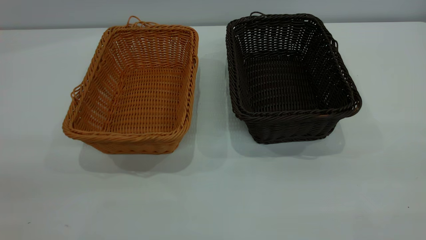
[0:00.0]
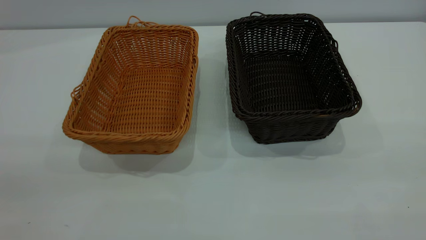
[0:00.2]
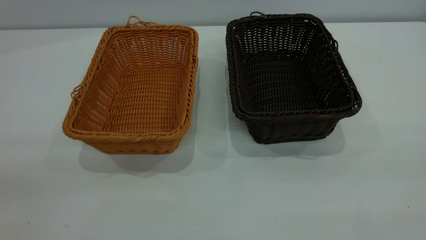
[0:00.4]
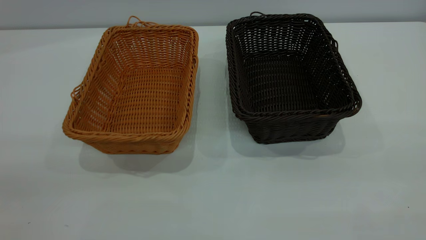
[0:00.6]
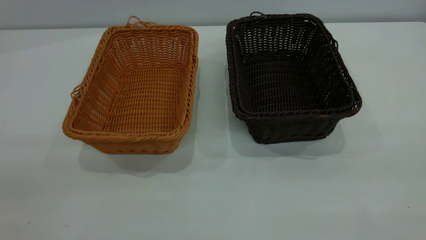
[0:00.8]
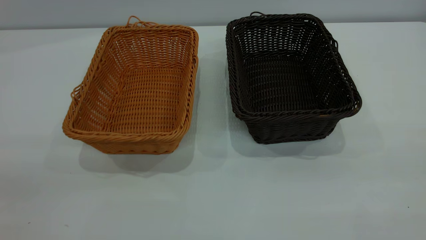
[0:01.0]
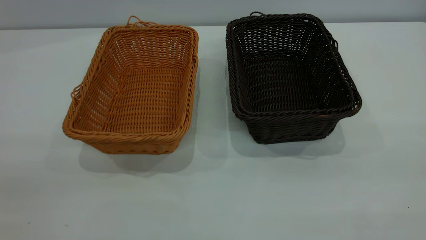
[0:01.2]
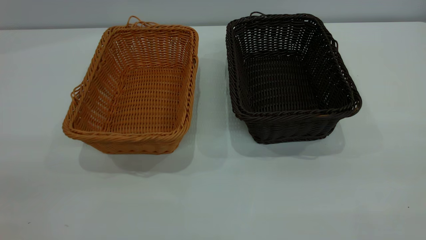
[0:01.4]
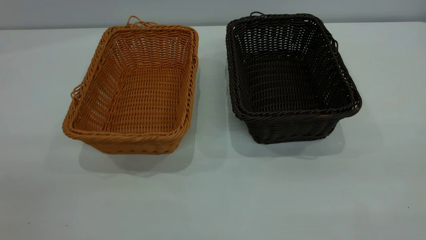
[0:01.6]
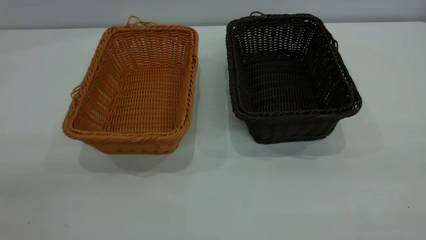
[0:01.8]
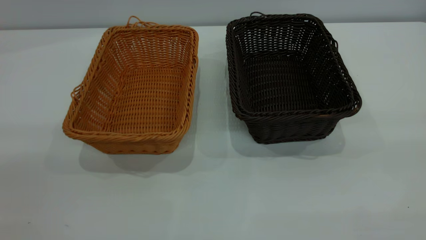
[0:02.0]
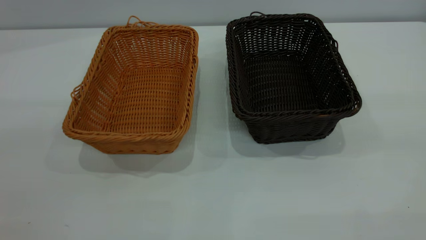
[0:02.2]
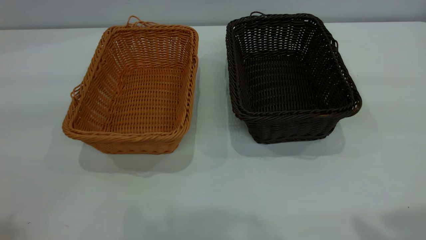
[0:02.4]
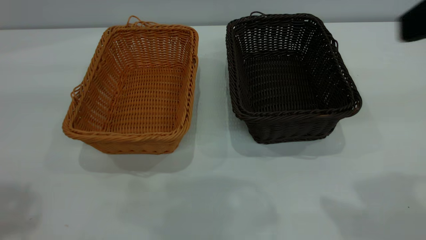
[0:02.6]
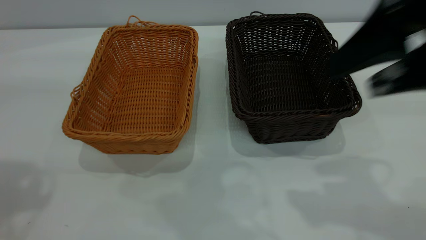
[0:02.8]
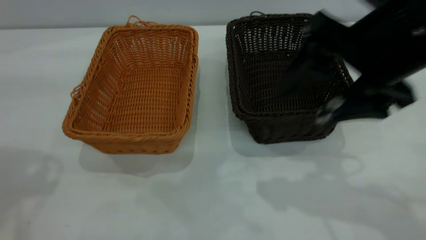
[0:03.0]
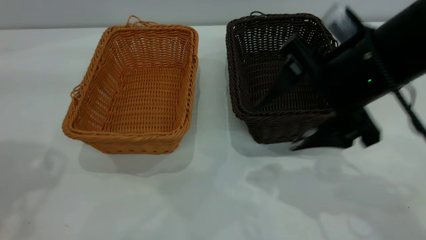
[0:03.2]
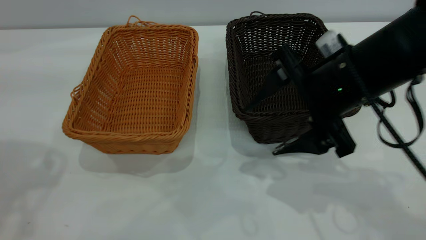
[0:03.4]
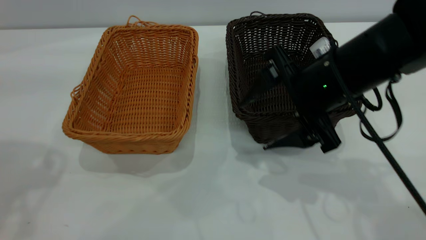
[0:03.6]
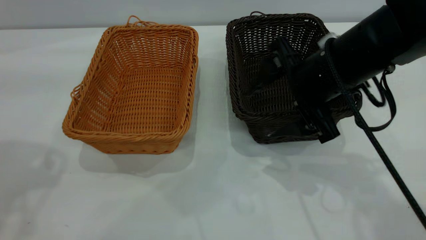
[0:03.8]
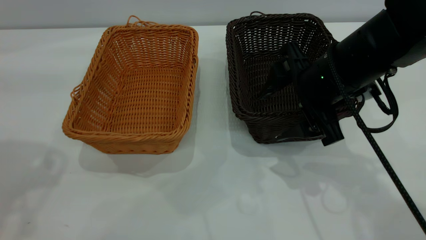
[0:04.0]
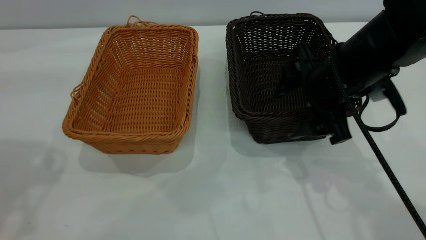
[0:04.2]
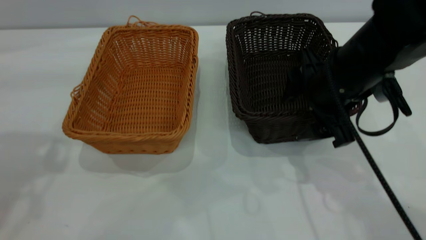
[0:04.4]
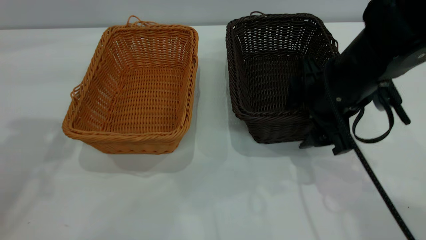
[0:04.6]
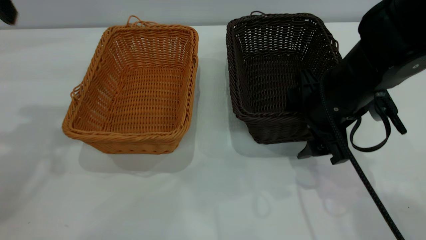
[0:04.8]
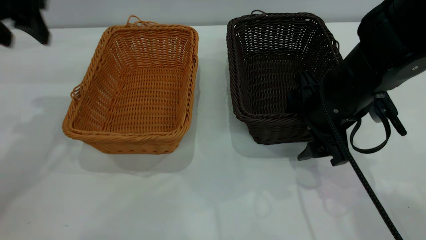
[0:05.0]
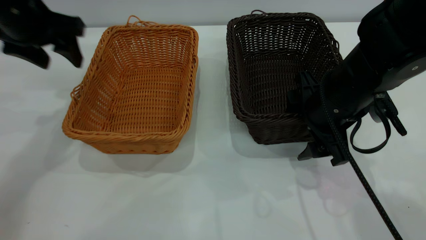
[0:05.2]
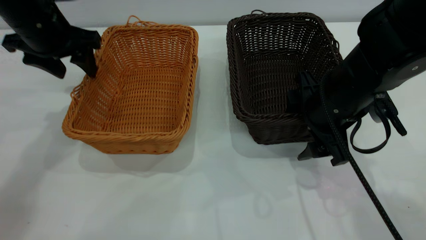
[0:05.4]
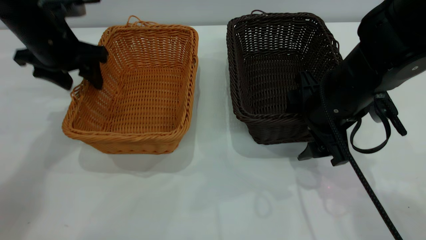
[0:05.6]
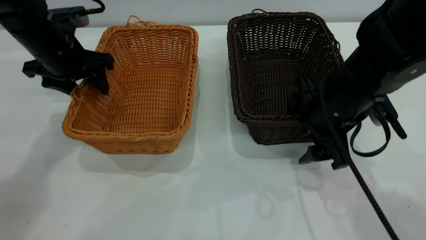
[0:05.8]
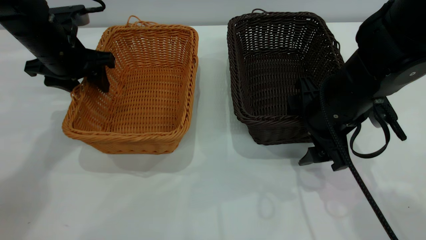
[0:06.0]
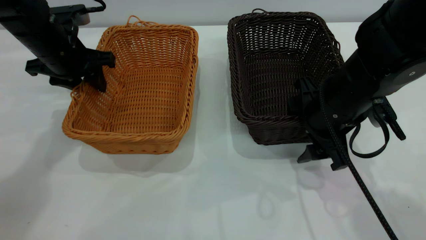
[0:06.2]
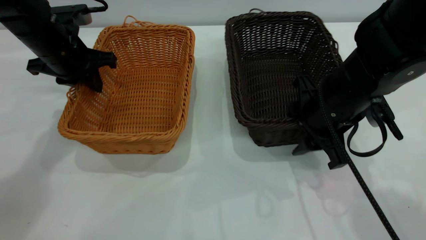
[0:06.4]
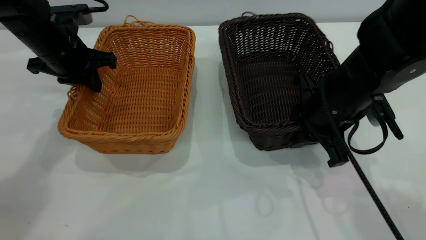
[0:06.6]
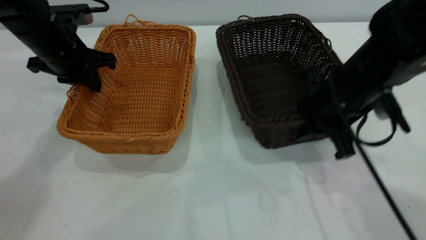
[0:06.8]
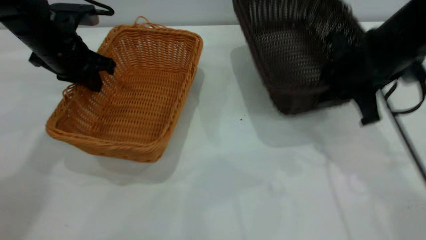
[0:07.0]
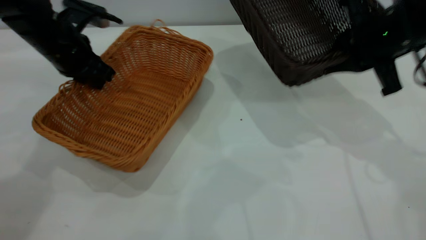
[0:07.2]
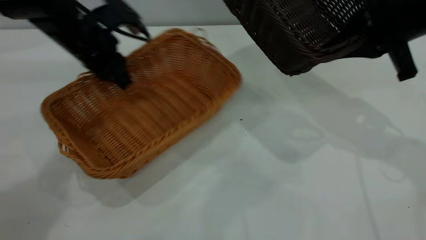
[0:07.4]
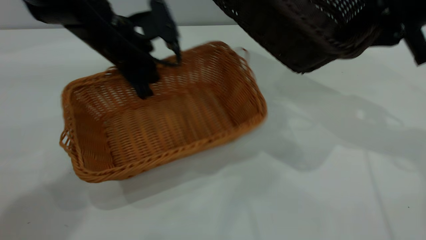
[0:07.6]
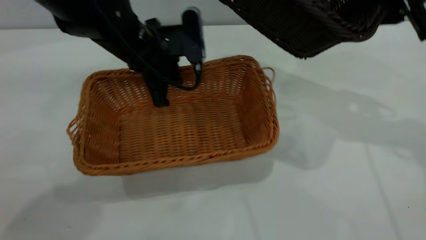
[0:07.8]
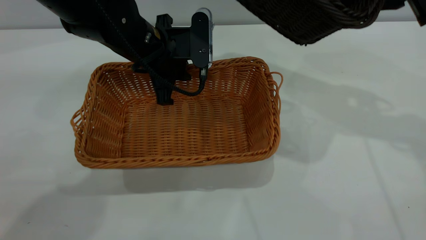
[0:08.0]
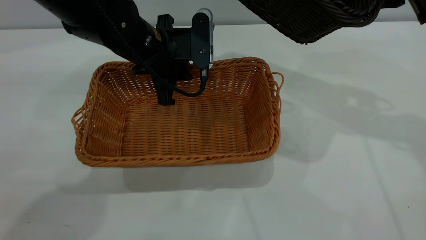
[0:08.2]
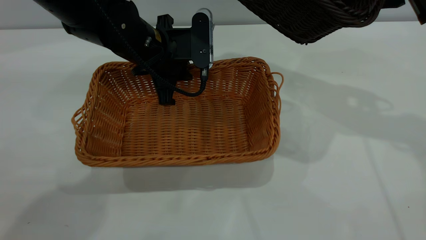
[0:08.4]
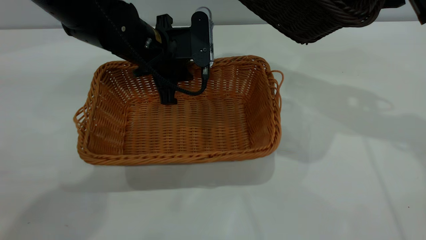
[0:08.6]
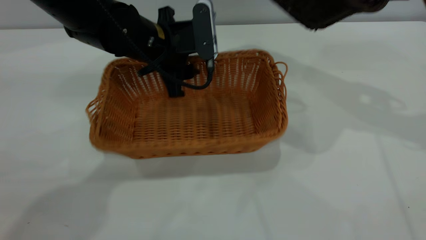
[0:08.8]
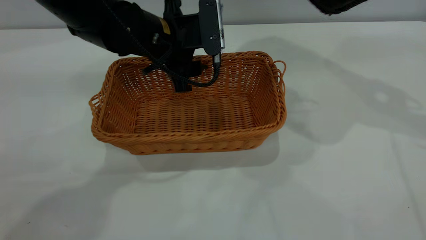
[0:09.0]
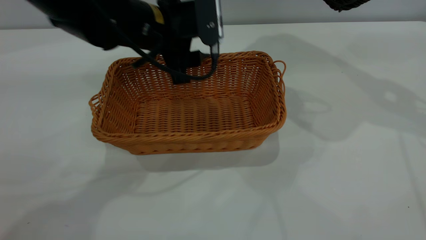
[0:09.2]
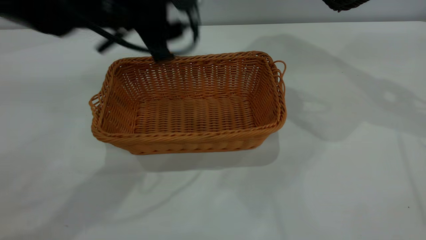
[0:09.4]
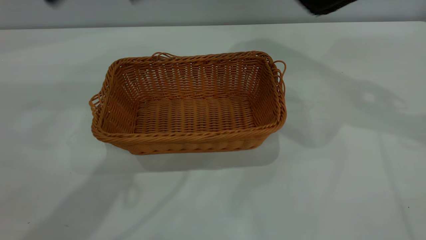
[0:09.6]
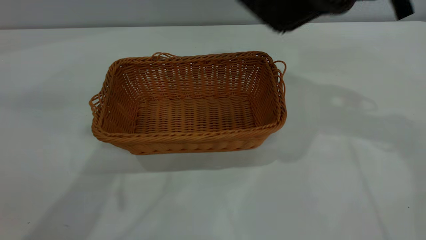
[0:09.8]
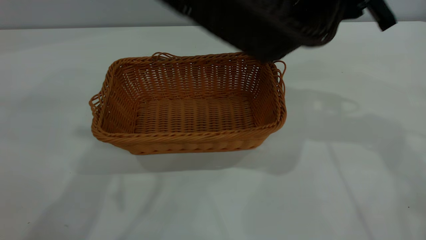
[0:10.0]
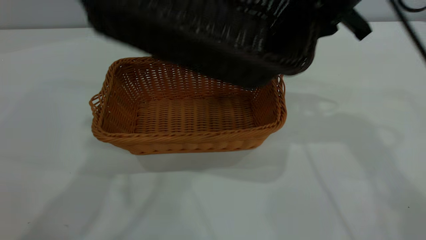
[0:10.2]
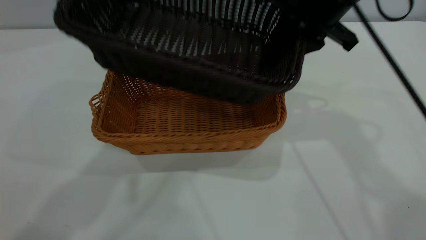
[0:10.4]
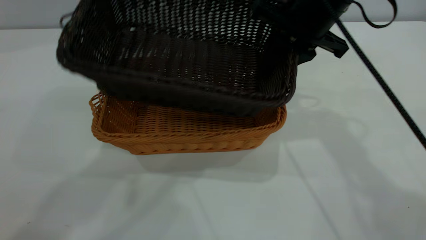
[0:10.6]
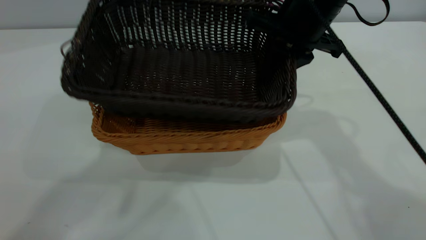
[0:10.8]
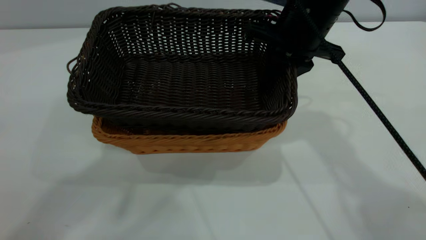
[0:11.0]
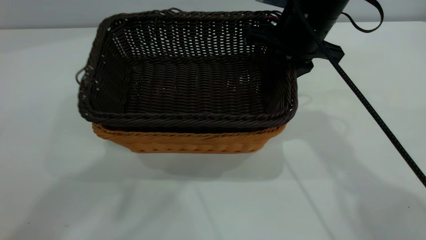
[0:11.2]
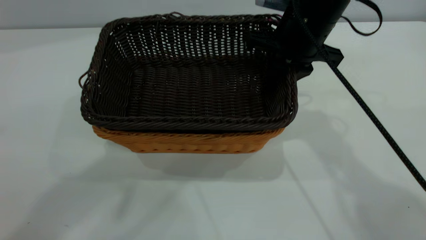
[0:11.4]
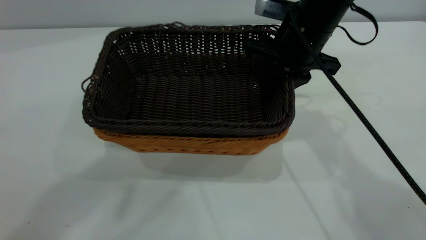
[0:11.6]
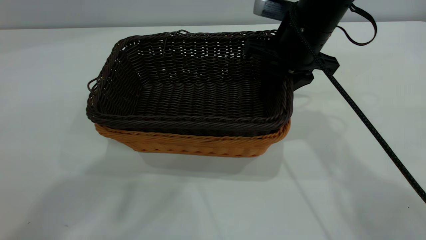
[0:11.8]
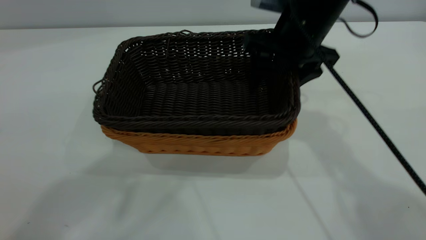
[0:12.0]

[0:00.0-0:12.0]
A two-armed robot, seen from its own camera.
Task of the whole recording: the left gripper grasp the brown basket and place it in the center of the table, the right gripper grasp the black basket and place it inside the brown one.
Step, 0:00.0 to 0:06.8: Pick up the light basket with the right gripper.
Step, 0:07.0 to 0:09.2: Place the light-colored basket in the center.
0:00.0 to 0:01.6: The two grippers keep their place.
0:01.6 to 0:03.0: The right gripper is displaced forward, to the left and downward by some 30 cm.
0:03.0 to 0:04.4: The right gripper heads downward and forward, covering roughly 10 cm.
0:04.4 to 0:06.0: The left gripper goes some 25 cm downward and forward.
0:06.0 to 0:07.6: The left gripper moves to the right, some 10 cm, and closes its fingers. Meanwhile the right gripper goes about 15 cm upward and to the right, and closes.
0:07.6 to 0:09.0: The right gripper moves roughly 5 cm; the left gripper goes about 5 cm to the right, and opens up.
0:09.0 to 0:10.4: The left gripper travels upward by about 30 cm. Meanwhile the right gripper moves to the left, approximately 15 cm.
0:10.4 to 0:12.0: The right gripper opens up.

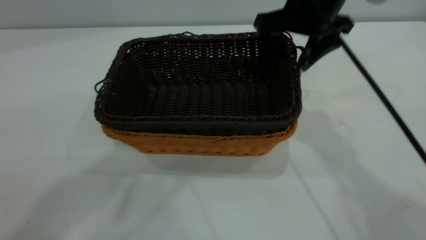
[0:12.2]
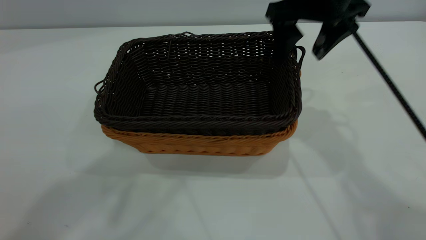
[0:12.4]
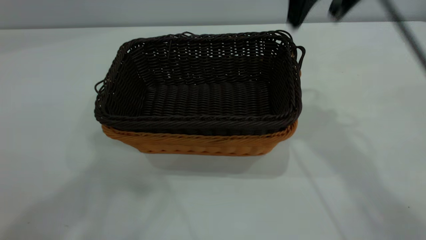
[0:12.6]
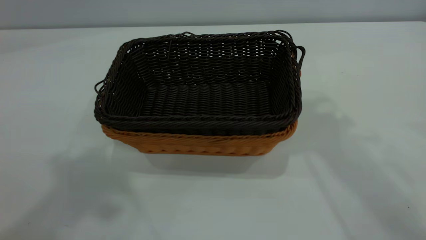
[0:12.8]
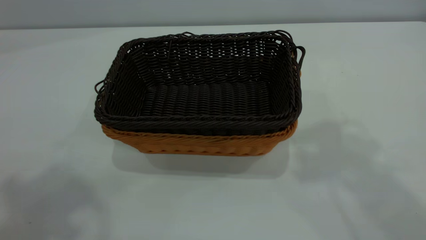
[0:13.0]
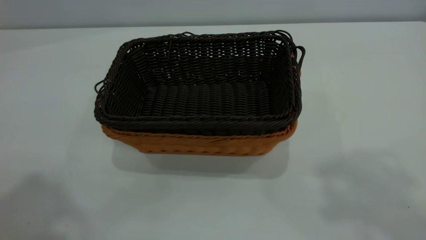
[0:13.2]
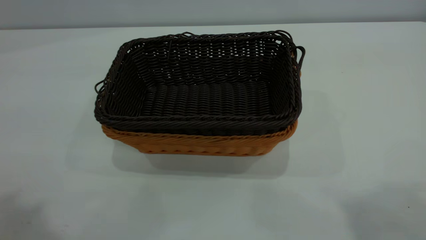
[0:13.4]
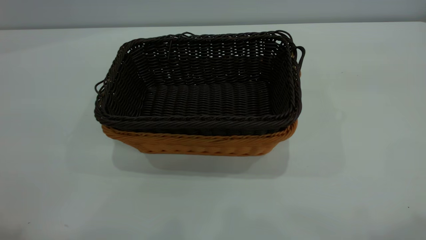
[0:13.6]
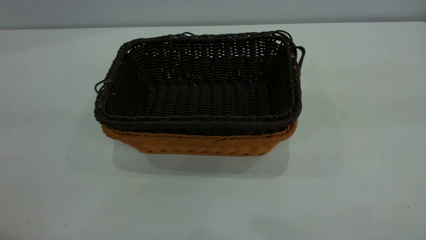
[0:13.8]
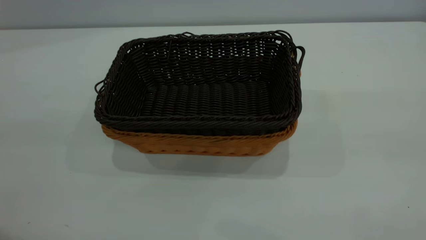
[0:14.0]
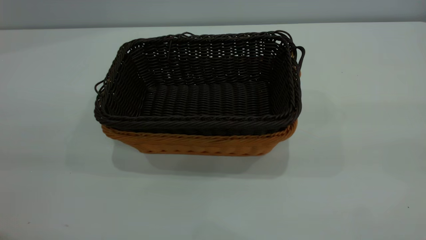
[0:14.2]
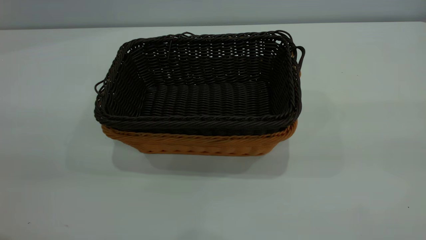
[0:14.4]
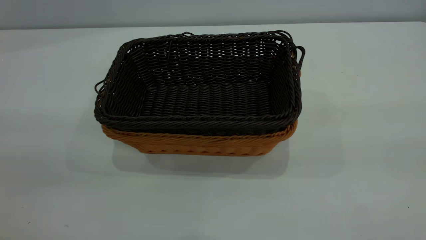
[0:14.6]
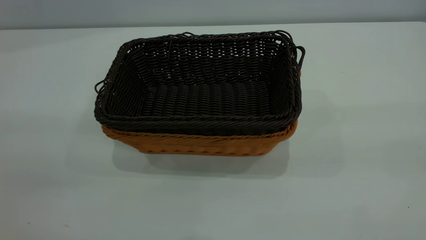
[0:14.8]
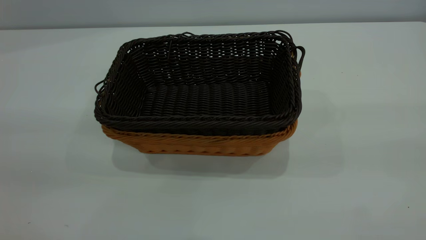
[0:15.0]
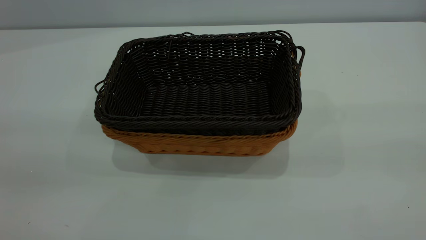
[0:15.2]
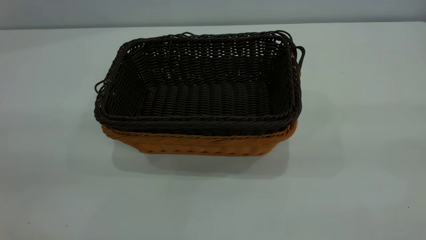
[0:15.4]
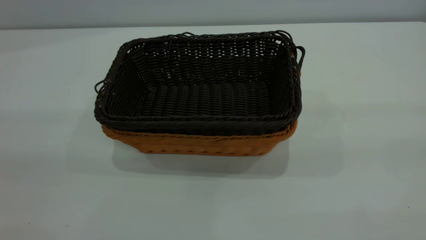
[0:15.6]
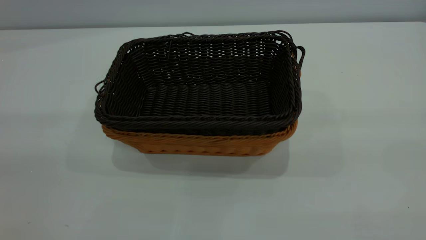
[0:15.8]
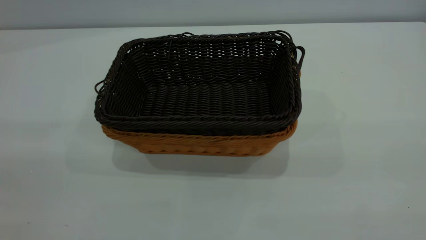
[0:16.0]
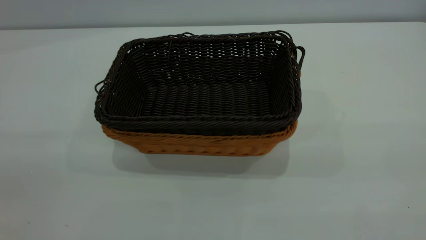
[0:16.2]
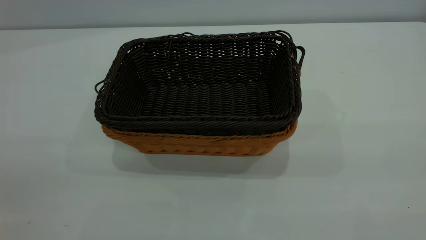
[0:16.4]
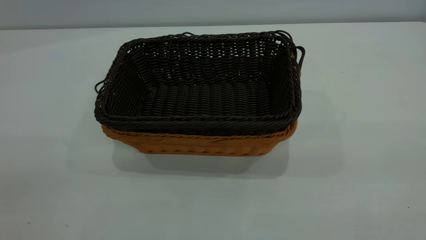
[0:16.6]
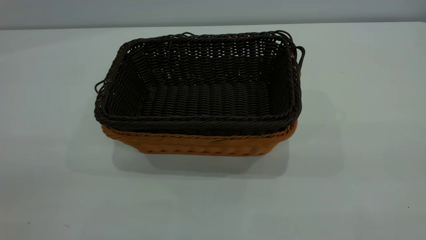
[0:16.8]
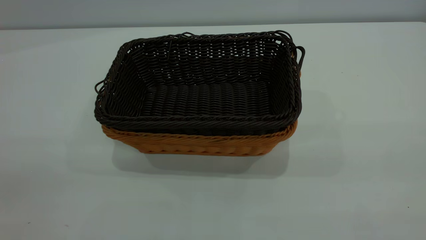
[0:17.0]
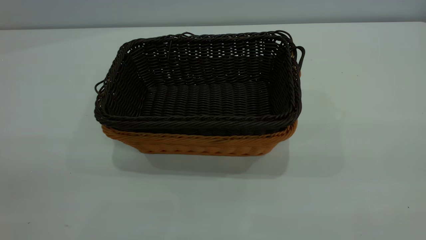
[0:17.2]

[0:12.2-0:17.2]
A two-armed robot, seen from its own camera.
Task of the whole recording: the left gripper grasp the brown basket and place it in the center of the table, the right gripper grasp the black basket and place it inside the brown one.
0:12.2 to 0:13.8: The left gripper goes approximately 25 cm backward and to the left. The right gripper travels backward, upward and to the right by roughly 40 cm.
